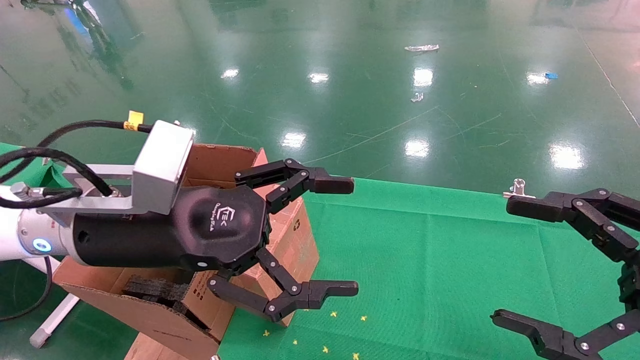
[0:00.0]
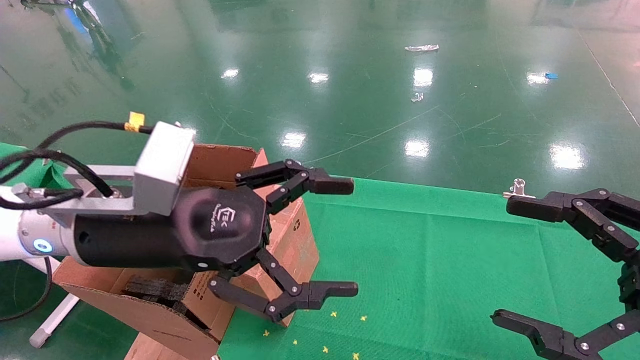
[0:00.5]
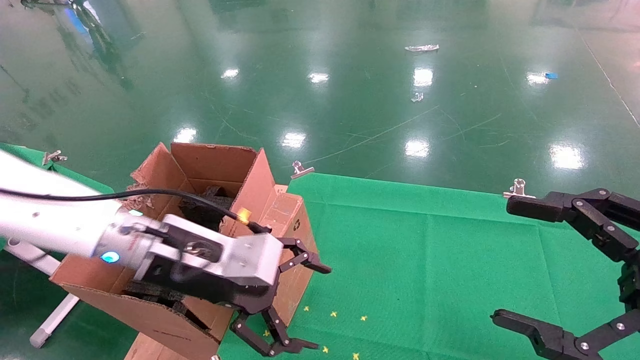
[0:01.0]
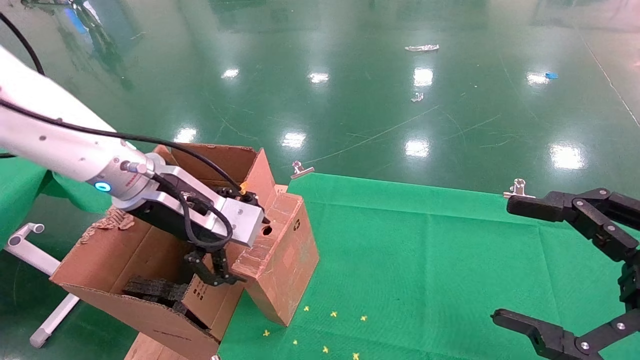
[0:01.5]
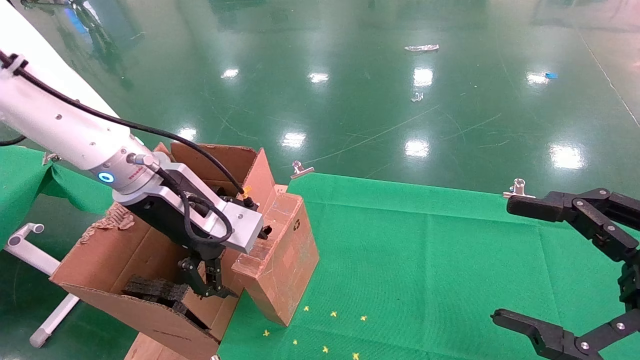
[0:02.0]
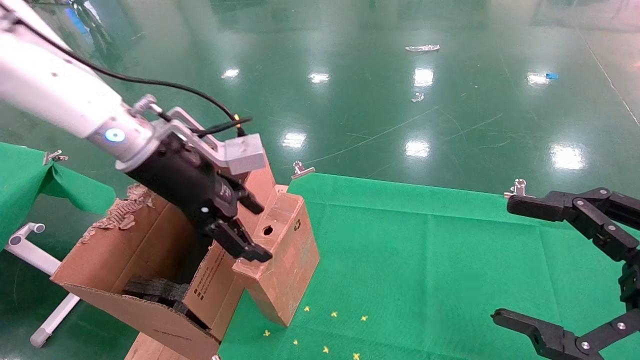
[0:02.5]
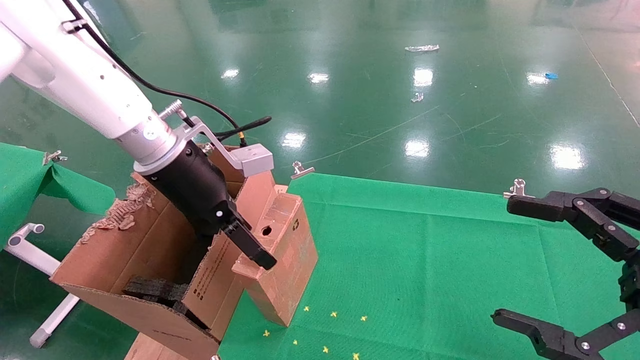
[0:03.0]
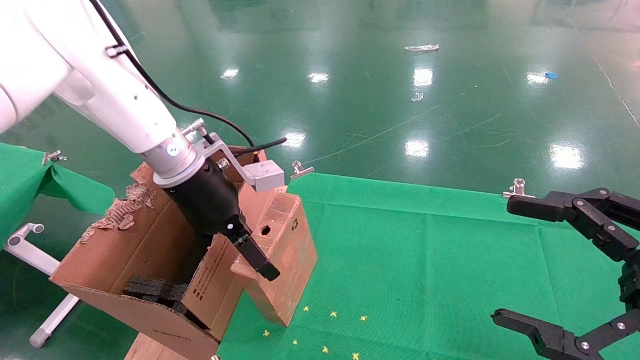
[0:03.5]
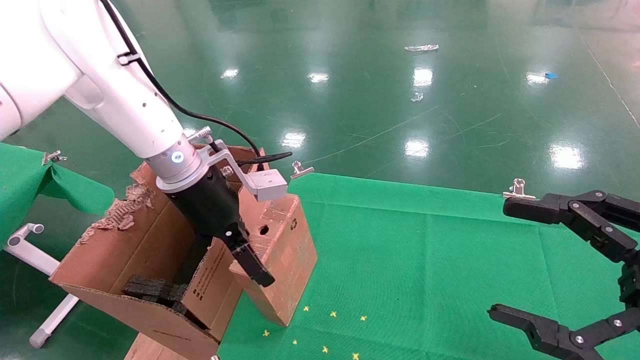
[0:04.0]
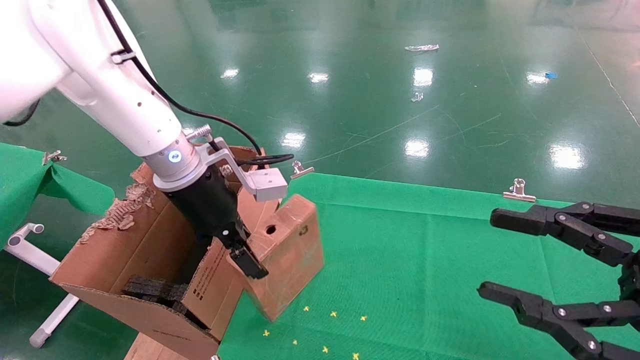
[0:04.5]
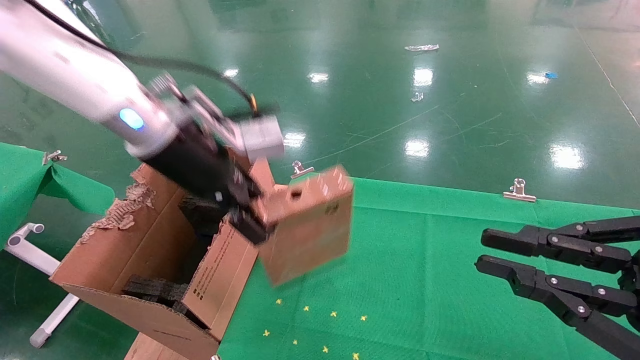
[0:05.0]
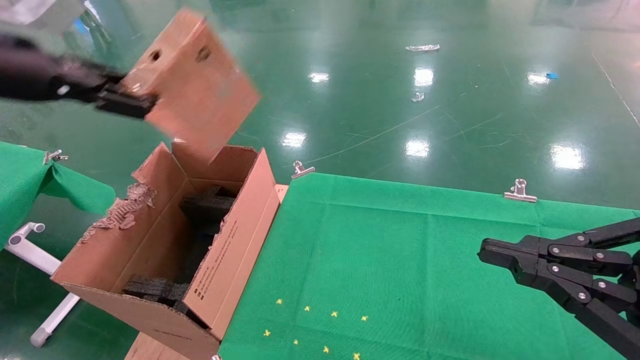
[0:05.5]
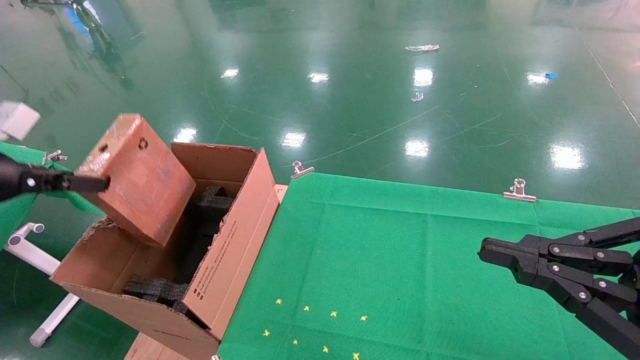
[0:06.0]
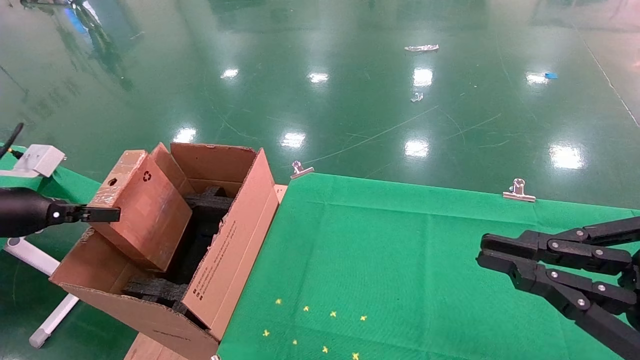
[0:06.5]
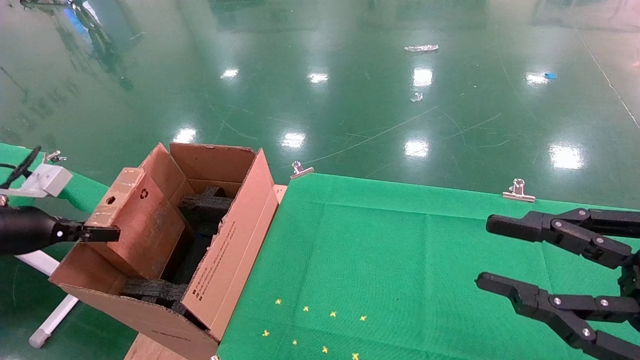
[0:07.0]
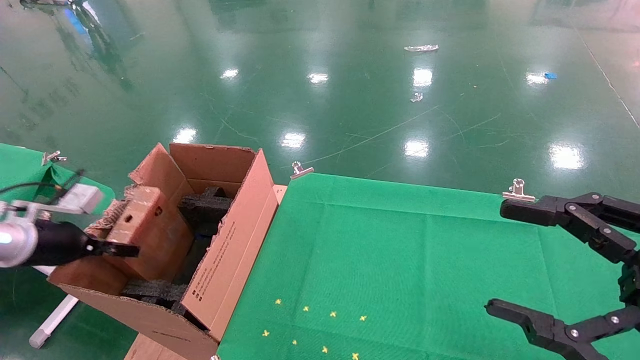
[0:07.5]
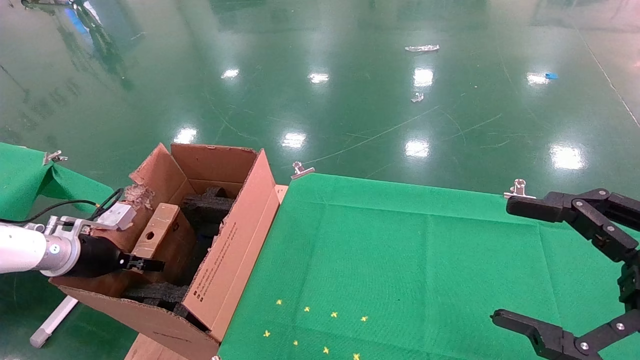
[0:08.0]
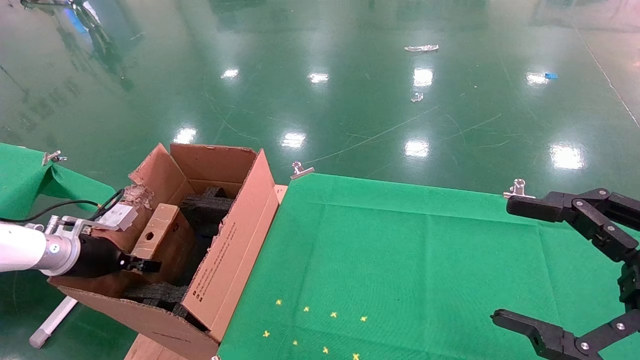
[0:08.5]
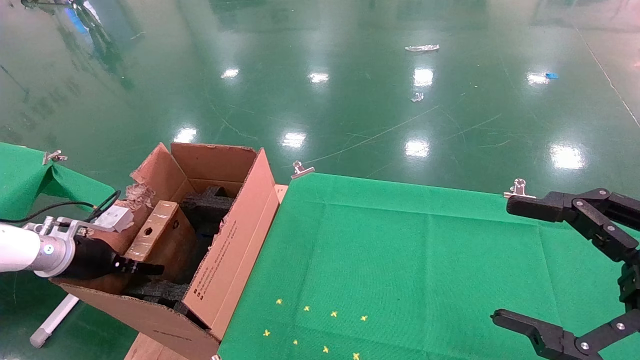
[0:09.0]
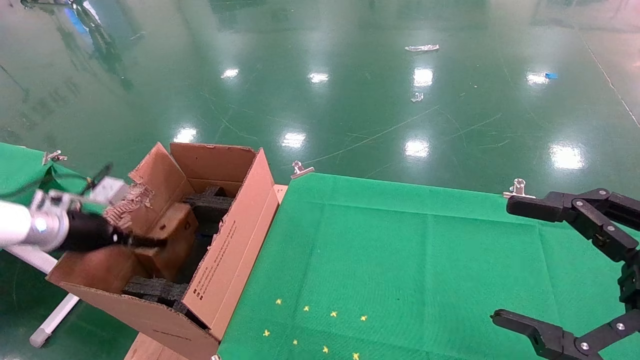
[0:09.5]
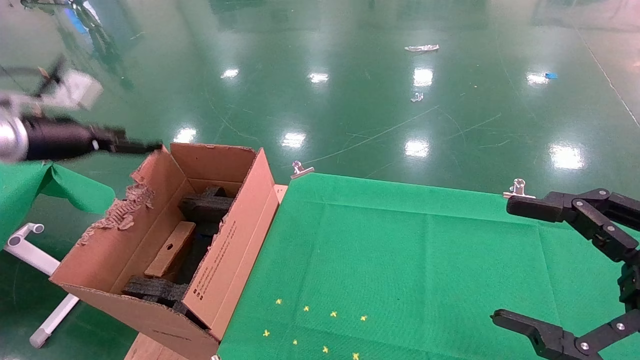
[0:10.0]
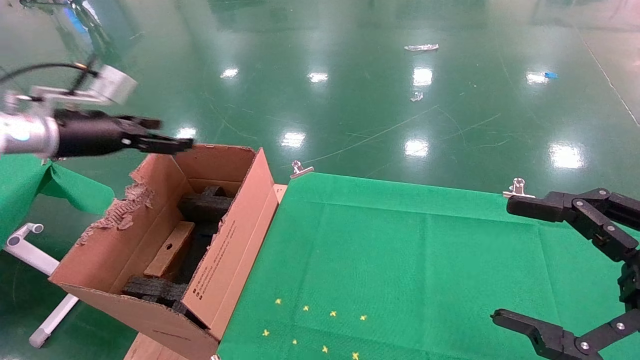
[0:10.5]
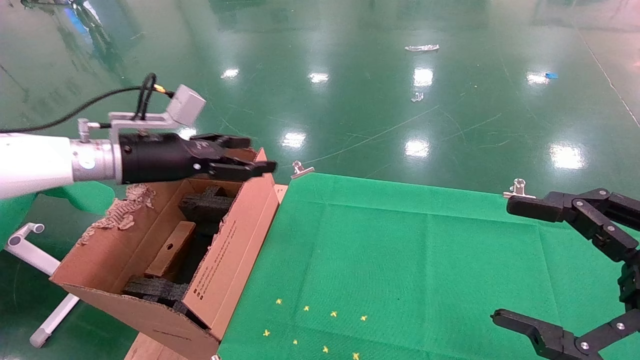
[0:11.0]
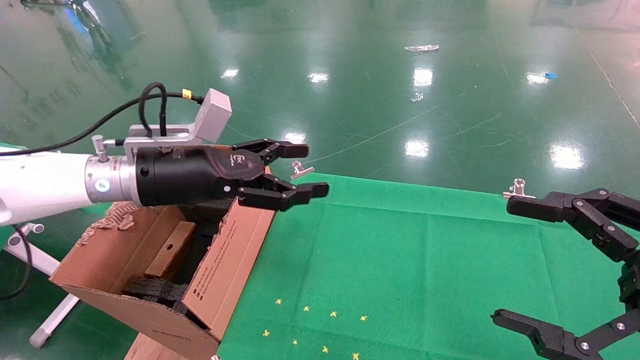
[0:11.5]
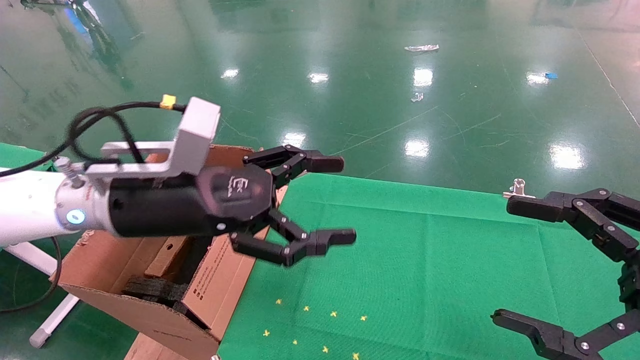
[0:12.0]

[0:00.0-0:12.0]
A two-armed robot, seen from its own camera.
Task of the whole recording: using a robotic arm to pick up a cardboard box and palace it the carton.
Step, 0:01.0 to 0:04.5: Pick up the mouse and the power cord paper box.
Step, 0:05.0 to 0:09.5: Place the mouse and the power cord paper box into the container.
0:00.0 to 0:02.0: The left gripper moves forward, roughly 10 cm.
0:02.0 to 0:04.0: The left gripper moves forward, about 5 cm.
0:04.0 to 0:06.0: The left gripper travels to the left by approximately 25 cm, and closes up; the right gripper closes.
0:06.0 to 0:08.0: The left gripper goes about 20 cm downward and forward. Meanwhile the right gripper opens its fingers.
0:08.0 to 0:10.0: The left gripper travels upward by approximately 20 cm, and opens up.
0:10.0 to 0:12.0: The left gripper heads to the right, covering roughly 30 cm.

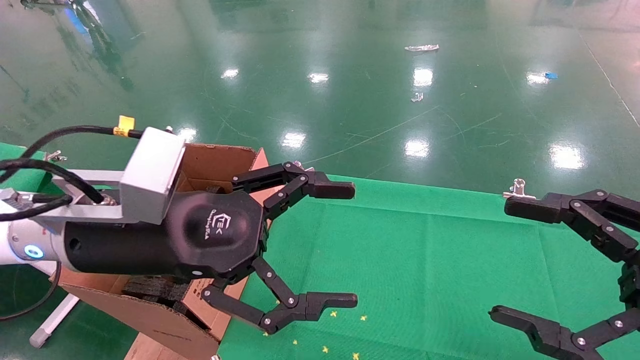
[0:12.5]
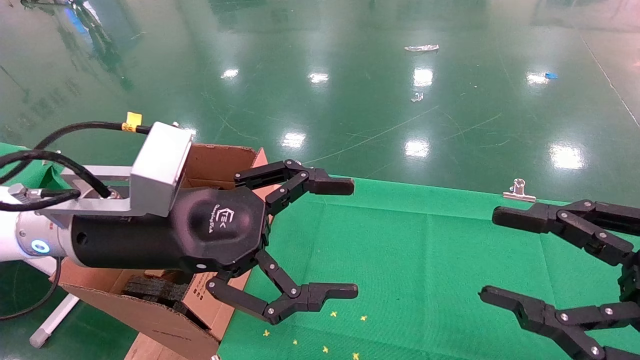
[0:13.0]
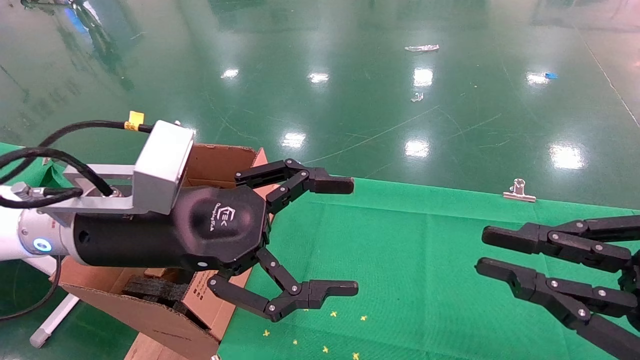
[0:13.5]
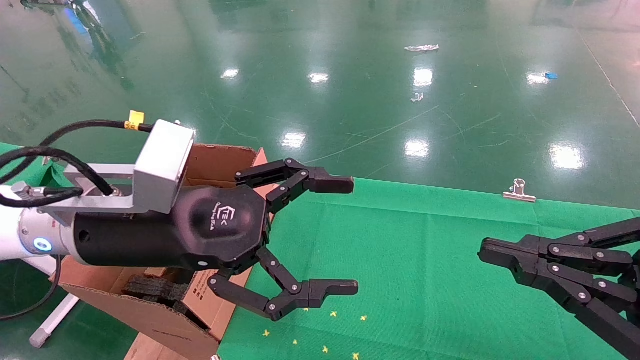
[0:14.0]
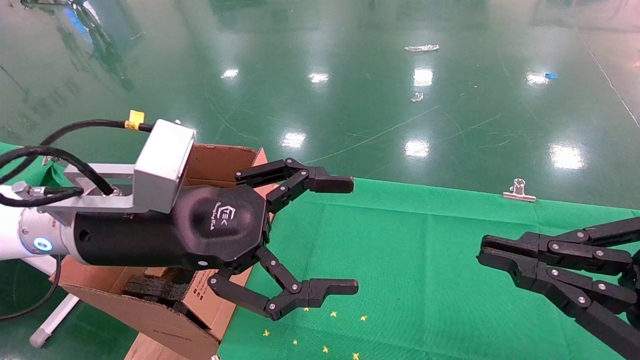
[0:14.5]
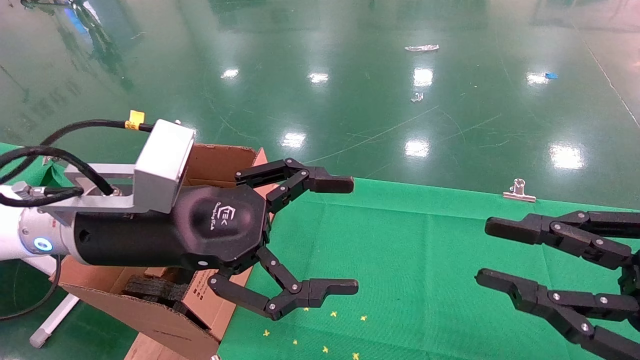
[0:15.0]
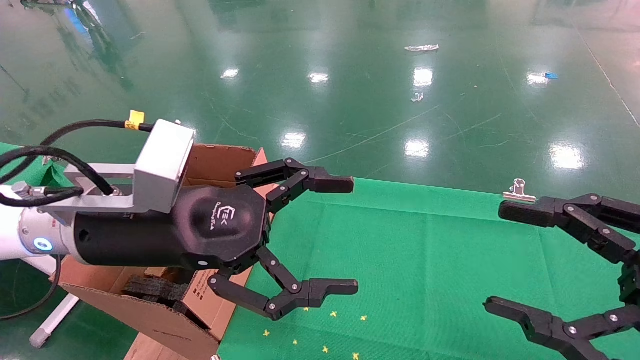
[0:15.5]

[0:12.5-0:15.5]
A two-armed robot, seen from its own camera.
Task of the whole recording: using a robotic arm to pick up a cardboard box and palace it the carton.
0:12.5 to 0:14.0: The right gripper closes up.
0:14.0 to 0:15.5: The right gripper opens up.
